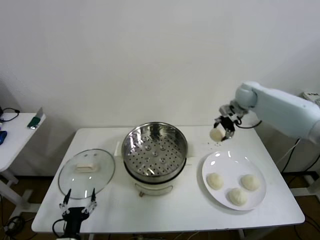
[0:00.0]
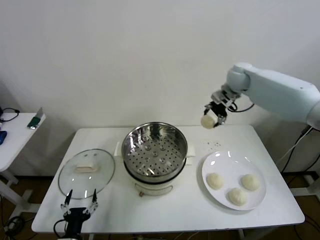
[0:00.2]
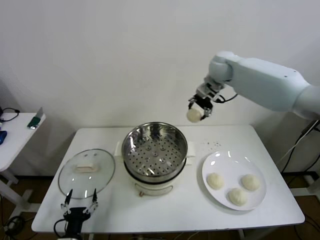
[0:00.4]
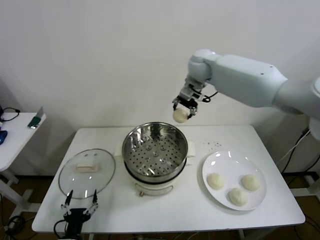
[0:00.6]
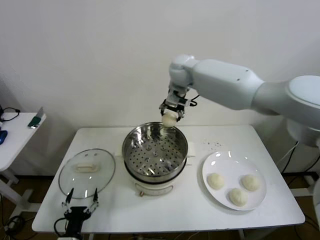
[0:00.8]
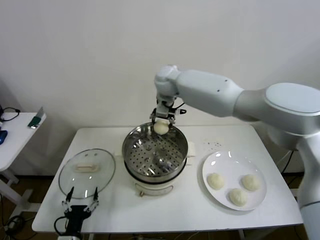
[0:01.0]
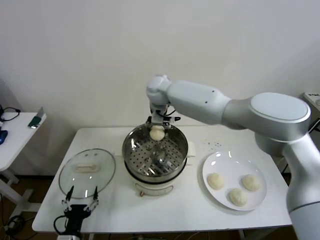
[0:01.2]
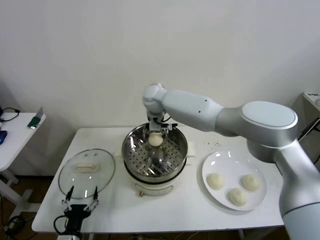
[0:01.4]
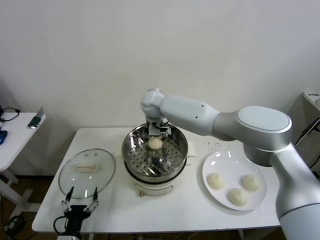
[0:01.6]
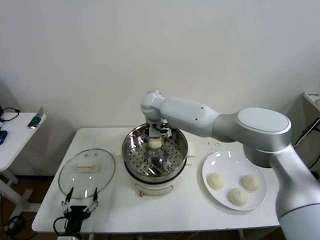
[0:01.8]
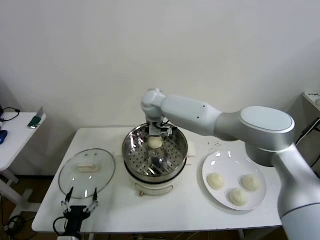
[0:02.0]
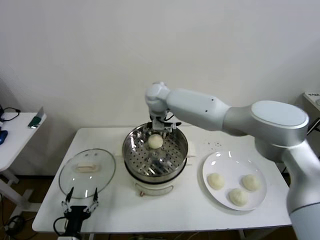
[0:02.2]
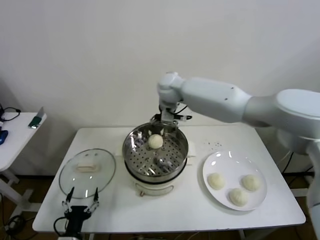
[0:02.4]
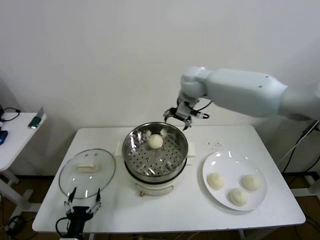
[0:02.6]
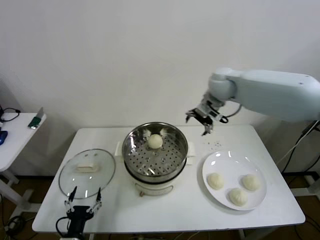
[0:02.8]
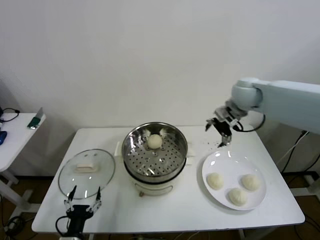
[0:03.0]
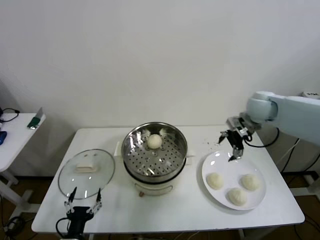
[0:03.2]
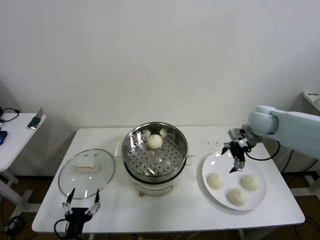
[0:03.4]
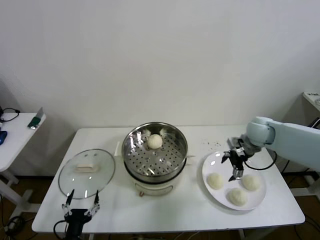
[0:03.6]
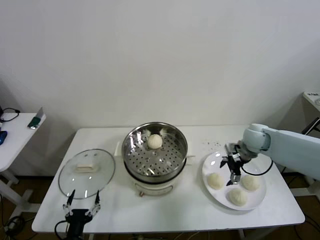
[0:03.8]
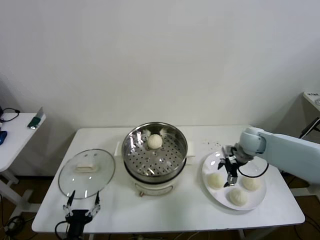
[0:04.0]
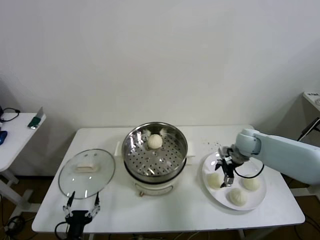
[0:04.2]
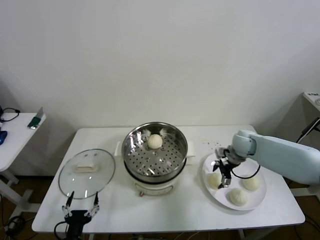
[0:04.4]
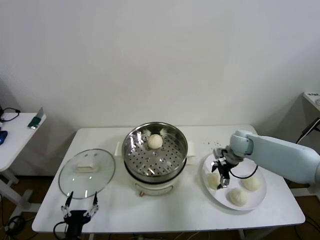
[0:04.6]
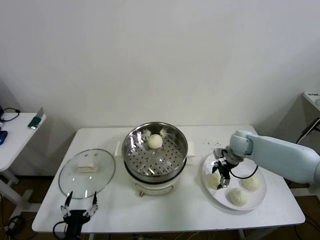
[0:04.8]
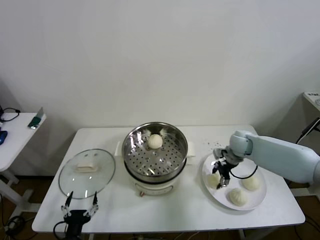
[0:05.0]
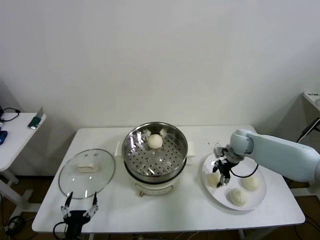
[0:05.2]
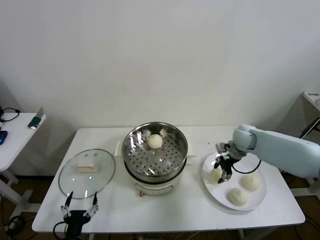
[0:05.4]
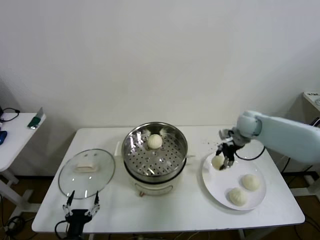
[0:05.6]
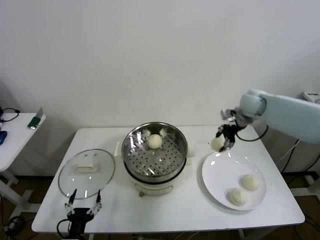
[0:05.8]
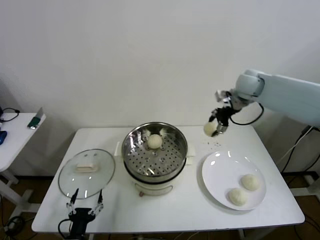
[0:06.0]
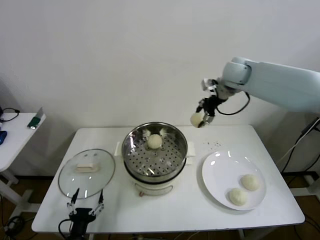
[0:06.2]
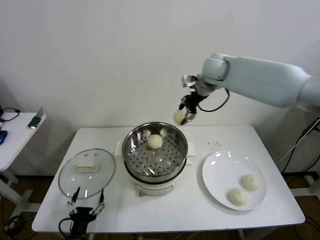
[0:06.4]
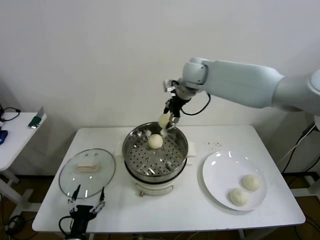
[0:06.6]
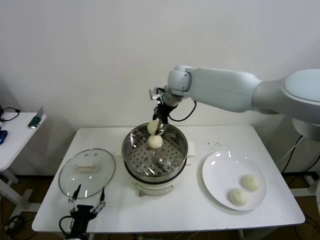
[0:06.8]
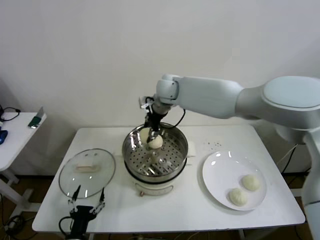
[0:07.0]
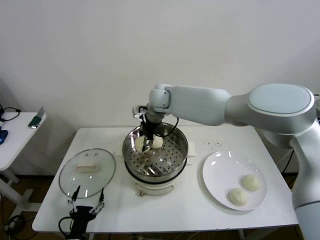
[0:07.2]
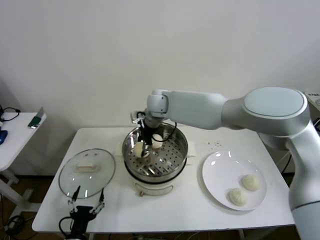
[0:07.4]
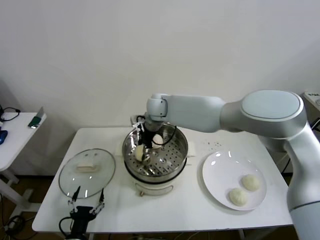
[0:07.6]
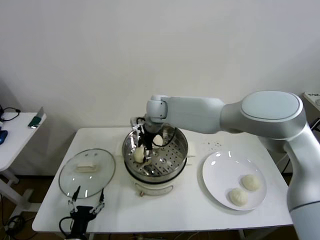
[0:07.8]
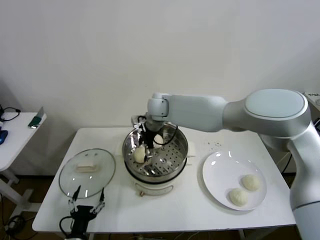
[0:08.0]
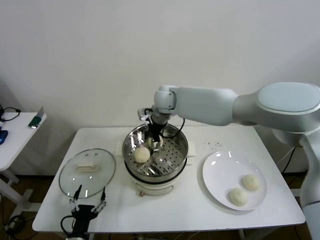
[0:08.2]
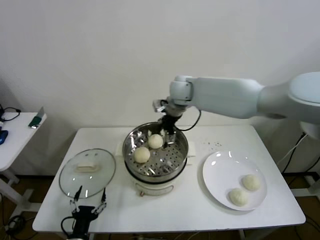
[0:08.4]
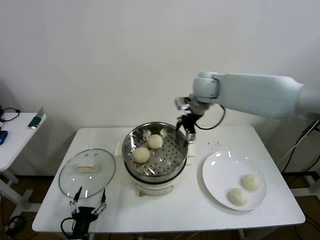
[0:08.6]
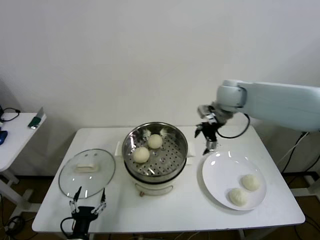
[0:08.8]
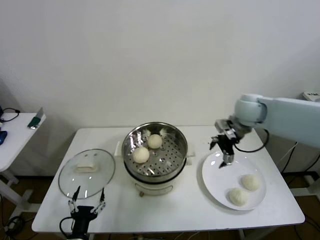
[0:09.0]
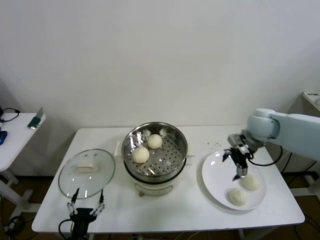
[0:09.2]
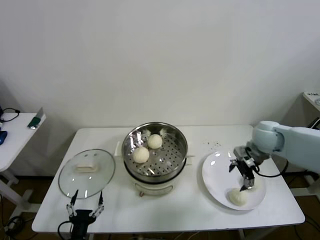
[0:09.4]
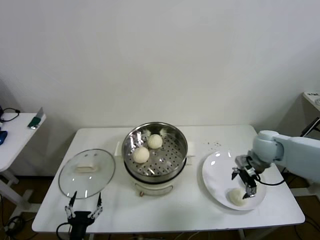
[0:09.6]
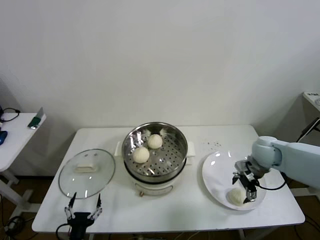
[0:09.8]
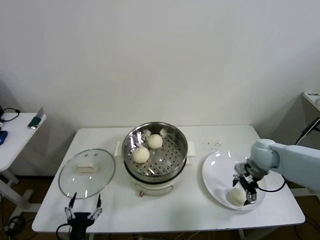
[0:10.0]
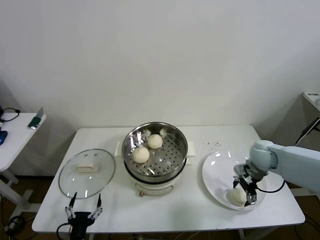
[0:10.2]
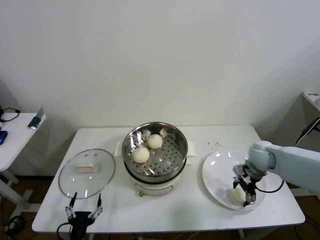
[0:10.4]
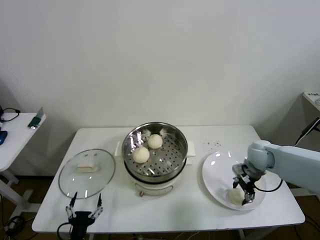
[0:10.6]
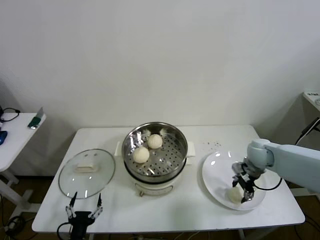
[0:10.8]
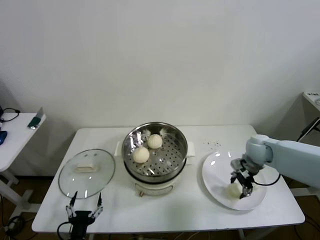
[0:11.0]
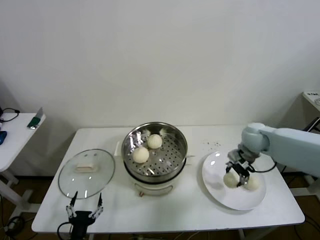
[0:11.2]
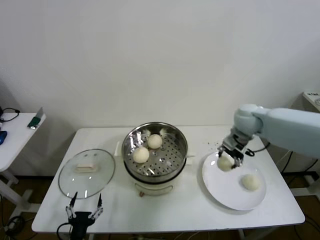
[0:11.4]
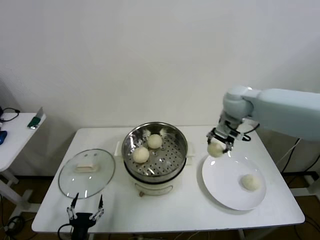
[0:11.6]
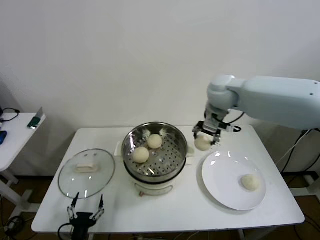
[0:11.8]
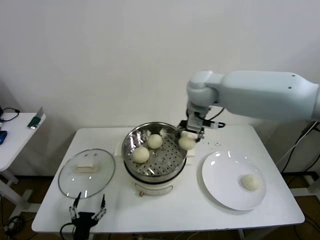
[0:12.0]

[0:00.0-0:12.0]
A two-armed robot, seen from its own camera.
Step, 0.0 to 2.2 s: Place the baozi on the steamer with right gripper.
Step, 2.4 to 5.2 s: Grasp the baozi in the plate with right gripper.
Step, 5.4 to 8.2 s: Place the baozi on the steamer with right gripper.
Step, 8.4 to 10.6 s: Grasp the baozi in the plate with right gripper.
0.0 to 1.6 s: The right gripper heads to the left, covering about 35 cm, and opens its fingers.
1.6 to 3.0 s: The right gripper travels to the right by approximately 35 cm.
3.0 to 4.4 s: The right gripper shifts approximately 20 cm downward.
4.4 to 6.0 s: The right gripper travels upward by some 25 cm, and closes up.
6.0 to 7.6 s: The right gripper heads to the left, covering about 30 cm.
7.6 to 9.0 s: The right gripper heads to the right, covering some 30 cm, and opens its fingers.
9.0 to 10.4 s: The right gripper shifts approximately 15 cm downward and to the right, and closes up.
10.4 to 12.0 s: The right gripper shifts approximately 35 cm to the left and upward, and closes its fingers.

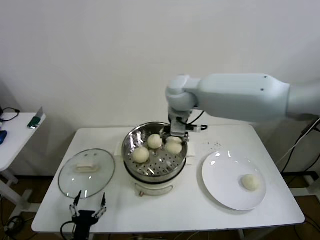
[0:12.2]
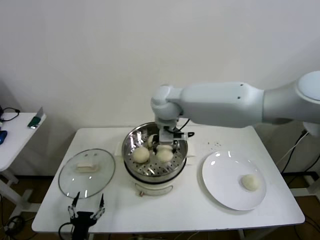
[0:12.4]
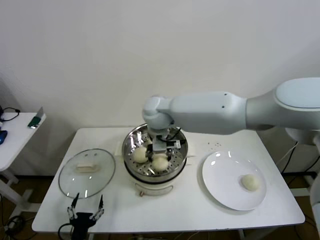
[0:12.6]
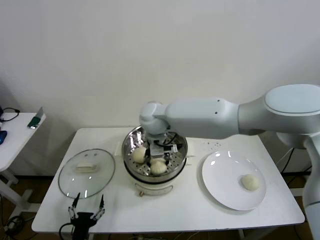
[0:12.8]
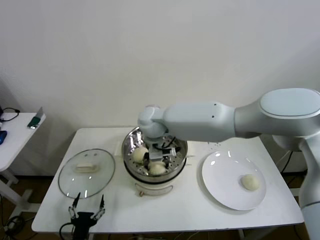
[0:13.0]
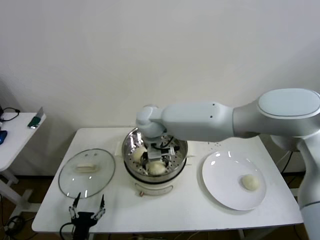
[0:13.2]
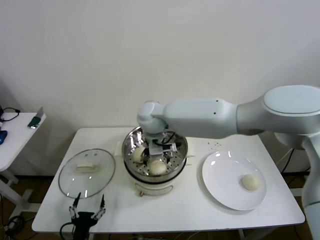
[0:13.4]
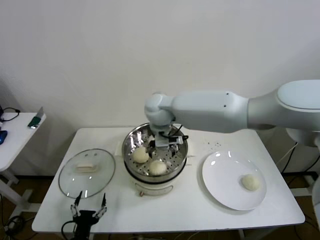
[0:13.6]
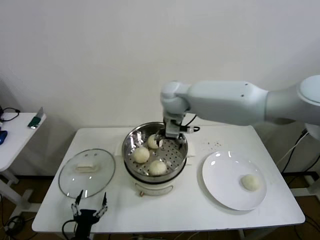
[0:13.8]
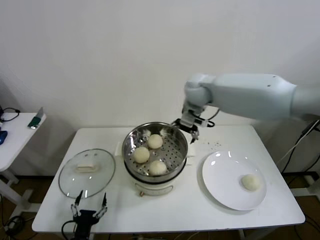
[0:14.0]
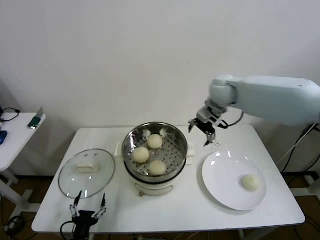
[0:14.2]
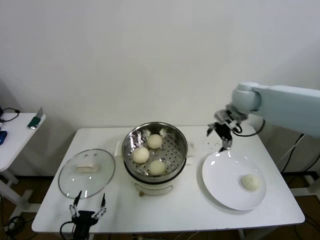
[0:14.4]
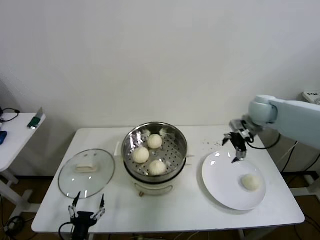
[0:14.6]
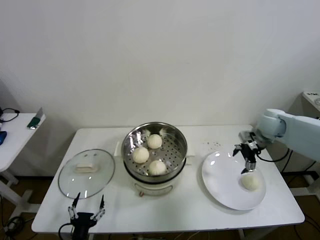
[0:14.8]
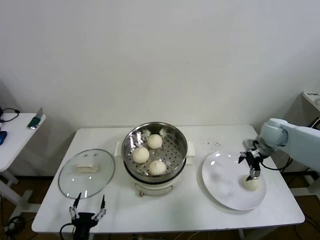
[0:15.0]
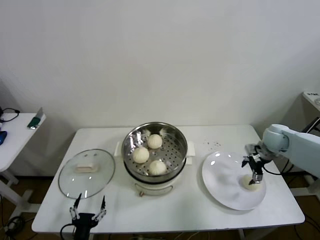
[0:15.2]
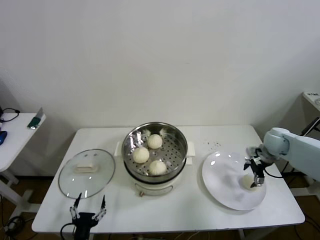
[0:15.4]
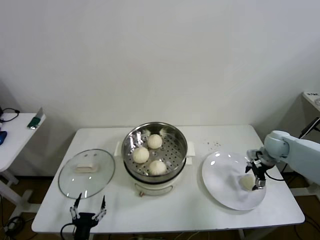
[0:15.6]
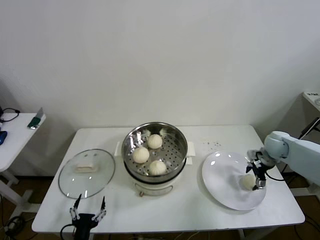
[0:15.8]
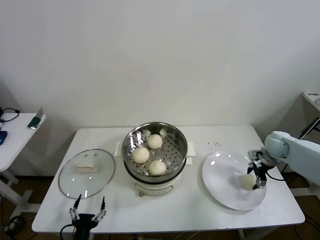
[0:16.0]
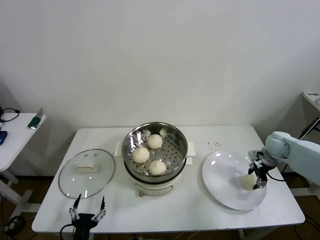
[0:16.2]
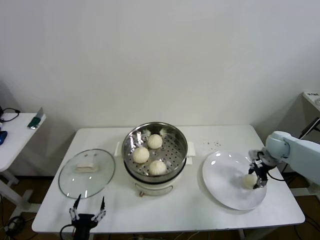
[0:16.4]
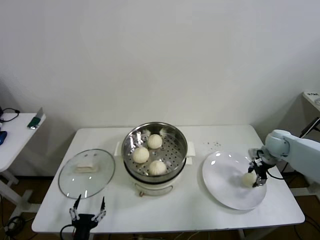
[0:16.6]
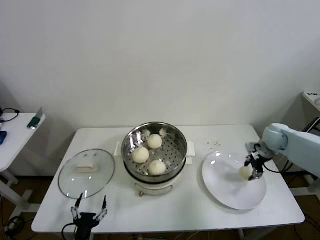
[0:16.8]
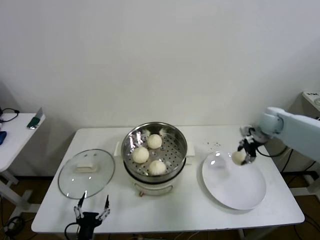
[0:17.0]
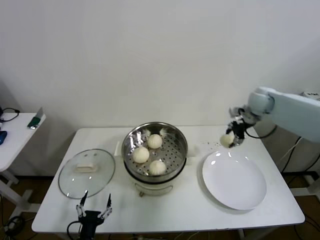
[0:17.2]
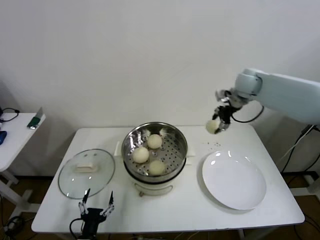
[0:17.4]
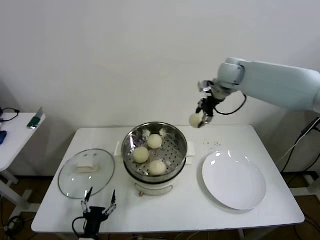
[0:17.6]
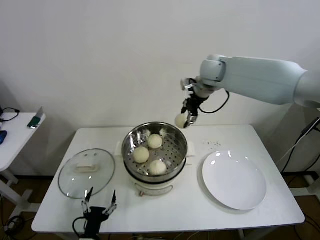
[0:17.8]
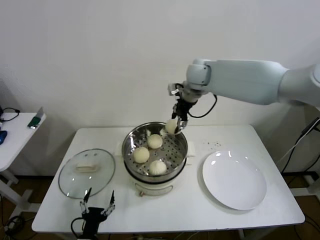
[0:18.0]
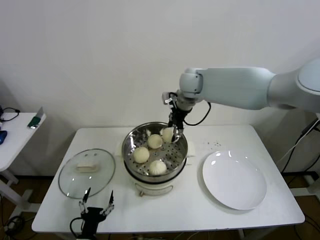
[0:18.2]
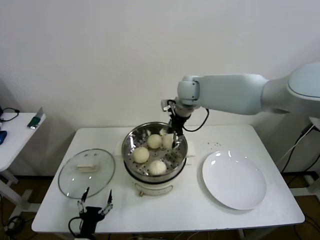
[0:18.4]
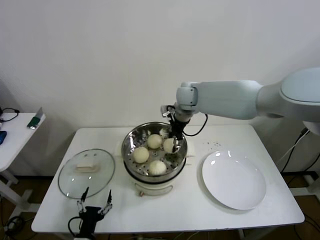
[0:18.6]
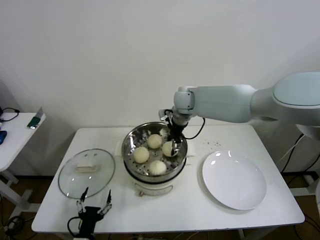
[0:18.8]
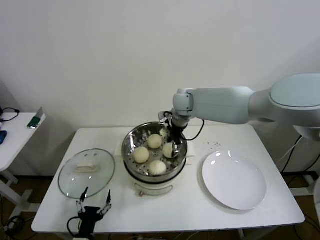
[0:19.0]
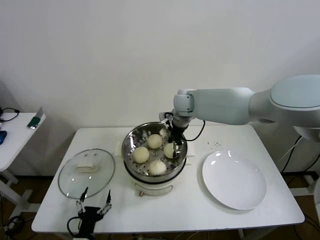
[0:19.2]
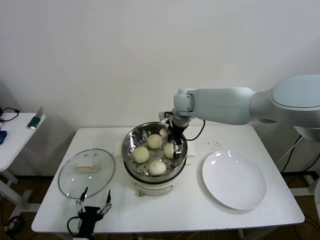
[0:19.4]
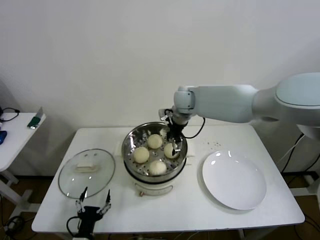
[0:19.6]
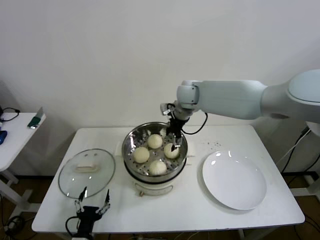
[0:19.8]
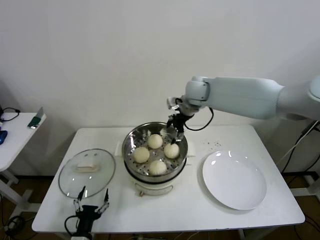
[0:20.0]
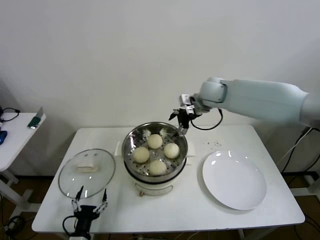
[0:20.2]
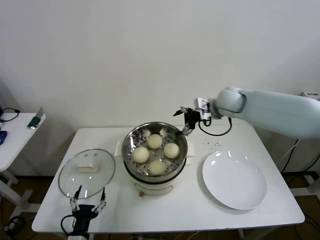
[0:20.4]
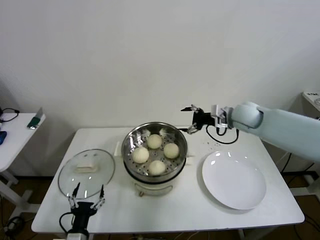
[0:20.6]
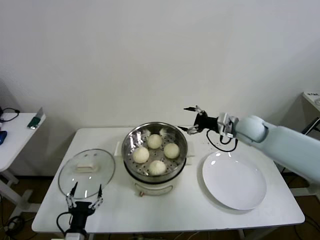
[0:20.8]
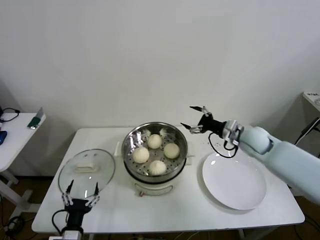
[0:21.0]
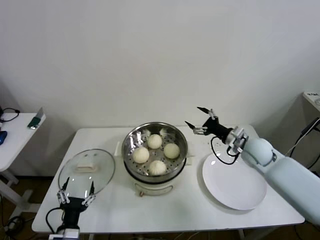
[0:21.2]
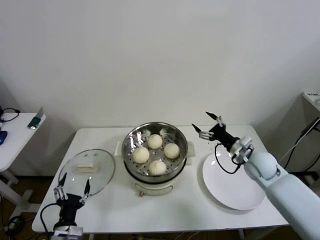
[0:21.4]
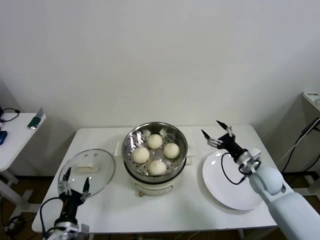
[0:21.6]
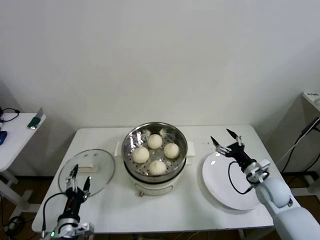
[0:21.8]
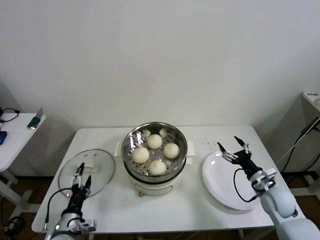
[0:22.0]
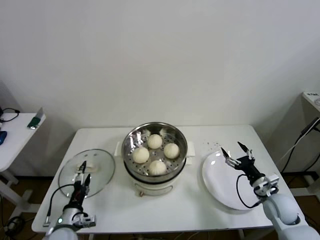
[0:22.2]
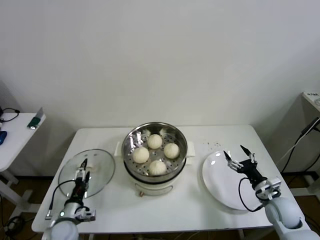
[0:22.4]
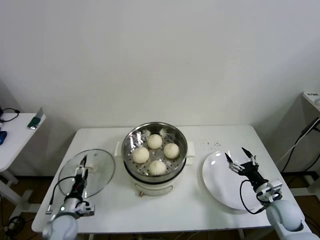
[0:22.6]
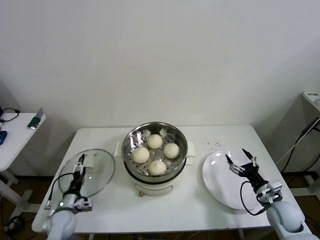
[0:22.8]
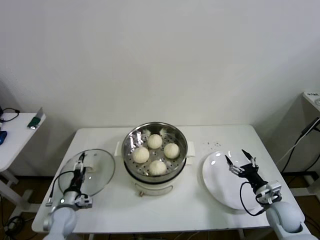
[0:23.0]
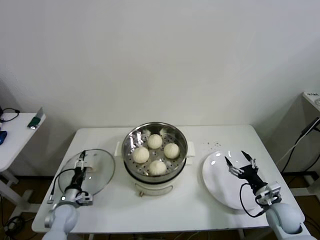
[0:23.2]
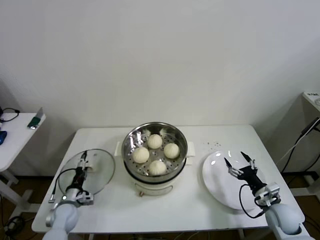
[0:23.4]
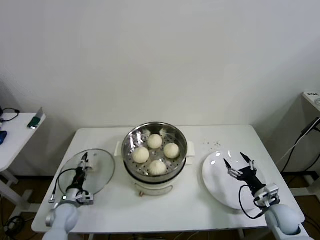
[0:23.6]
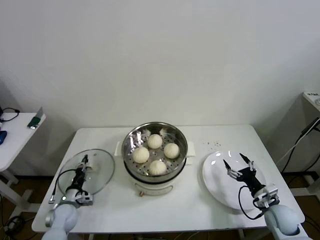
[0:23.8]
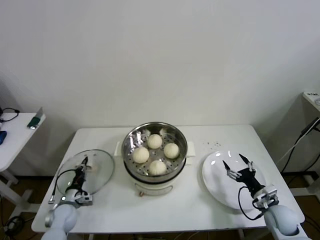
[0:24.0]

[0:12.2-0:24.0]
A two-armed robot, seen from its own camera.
Step, 12.2 to 13.8 s: Place the baozi on the steamer with right gripper.
Step, 14.0 to 16.6 s: Grasp the baozi in the plate with right gripper.
Step, 16.8 to 19.6 s: Place the baozi on the steamer with right gripper.
Step, 19.8 to 24.0 s: Grasp the pot lid with left gripper.
12.2 to 13.6 s: The right gripper opens its fingers.
13.6 to 15.2 s: The right gripper travels to the right by about 40 cm.
15.2 to 16.6 s: The right gripper closes.
16.6 to 18.2 s: The right gripper is displaced to the left and upward by approximately 40 cm.
18.2 to 19.6 s: The right gripper shifts some 5 cm downward, and opens.
19.6 to 21.0 s: The right gripper heads to the right, backward and downward, covering some 25 cm.
21.0 to 22.6 s: The right gripper shifts some 25 cm backward, downward and to the right. The left gripper goes about 15 cm forward and to the left.
22.6 to 24.0 s: The left gripper moves forward, some 5 cm, and closes.
